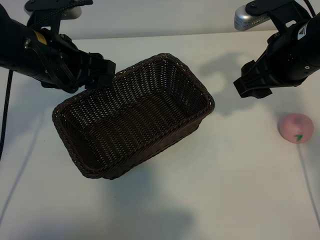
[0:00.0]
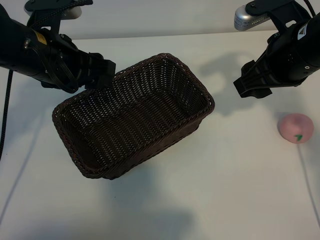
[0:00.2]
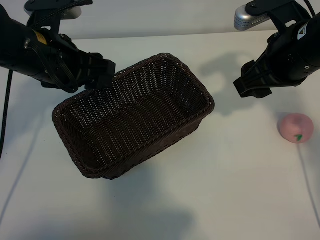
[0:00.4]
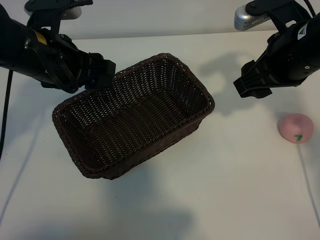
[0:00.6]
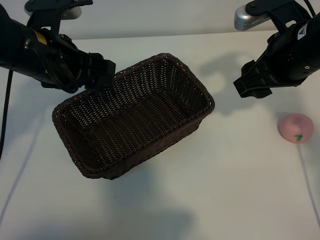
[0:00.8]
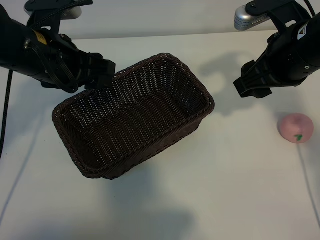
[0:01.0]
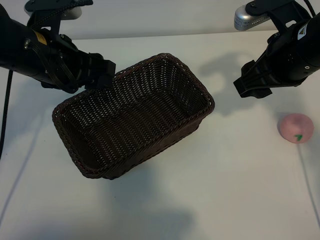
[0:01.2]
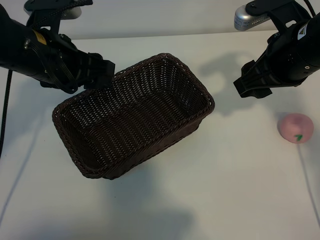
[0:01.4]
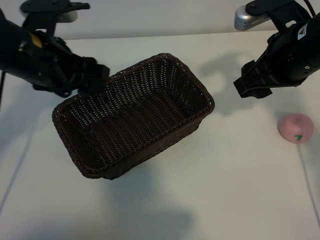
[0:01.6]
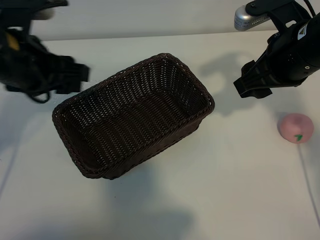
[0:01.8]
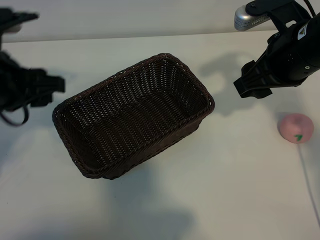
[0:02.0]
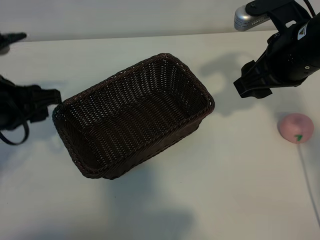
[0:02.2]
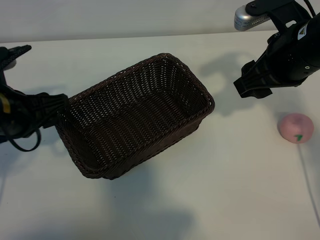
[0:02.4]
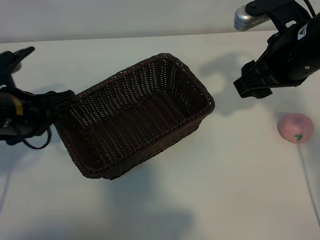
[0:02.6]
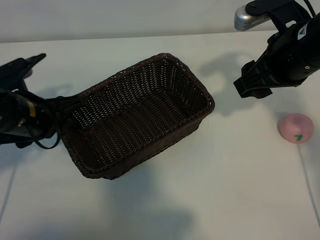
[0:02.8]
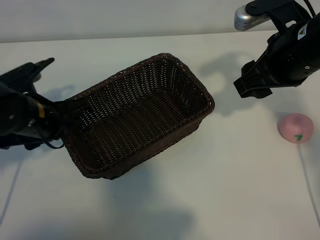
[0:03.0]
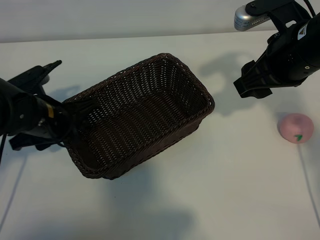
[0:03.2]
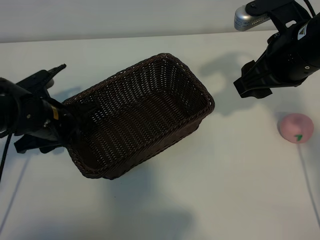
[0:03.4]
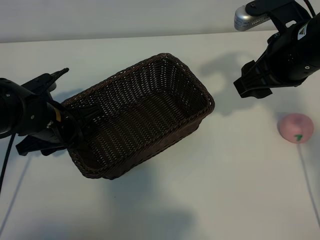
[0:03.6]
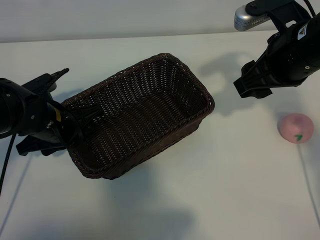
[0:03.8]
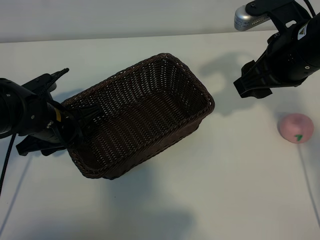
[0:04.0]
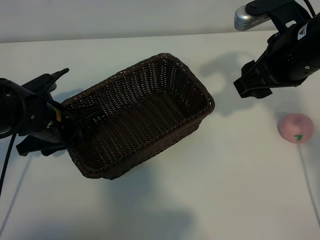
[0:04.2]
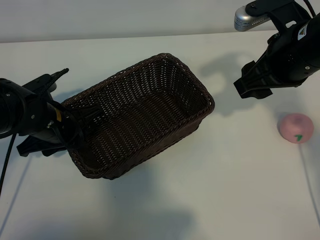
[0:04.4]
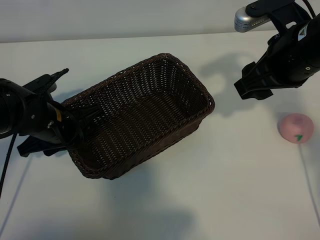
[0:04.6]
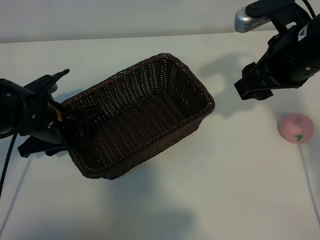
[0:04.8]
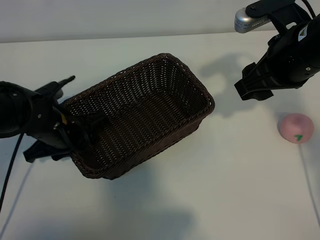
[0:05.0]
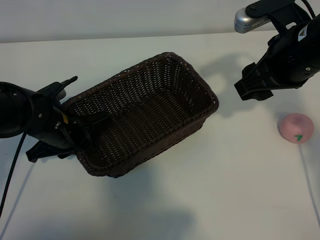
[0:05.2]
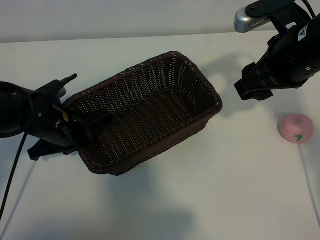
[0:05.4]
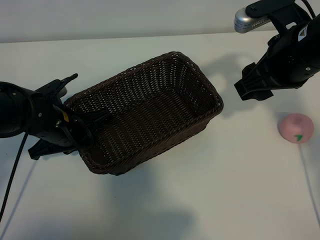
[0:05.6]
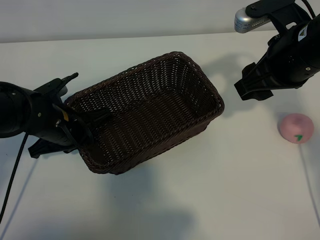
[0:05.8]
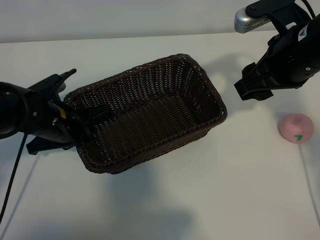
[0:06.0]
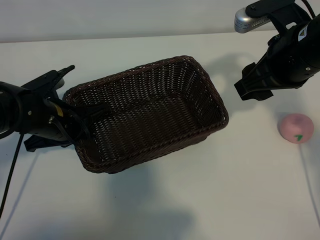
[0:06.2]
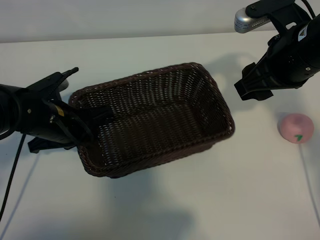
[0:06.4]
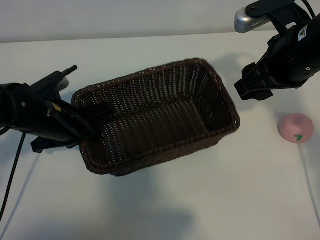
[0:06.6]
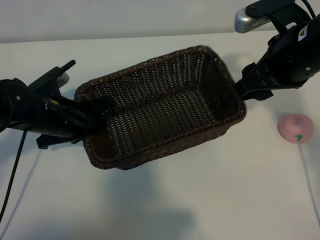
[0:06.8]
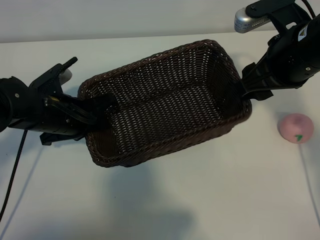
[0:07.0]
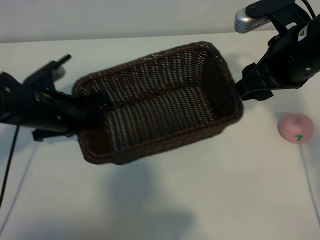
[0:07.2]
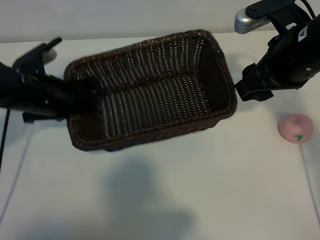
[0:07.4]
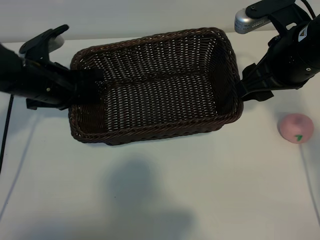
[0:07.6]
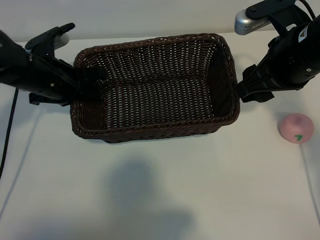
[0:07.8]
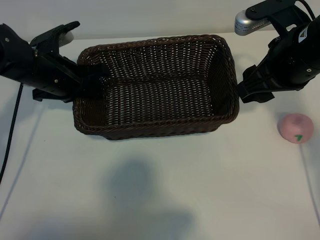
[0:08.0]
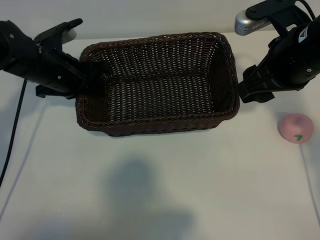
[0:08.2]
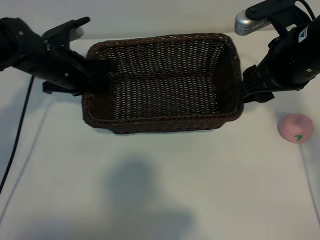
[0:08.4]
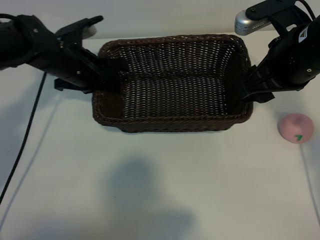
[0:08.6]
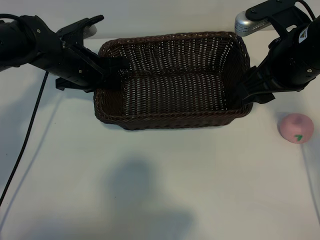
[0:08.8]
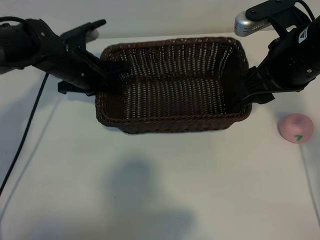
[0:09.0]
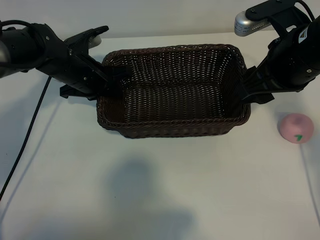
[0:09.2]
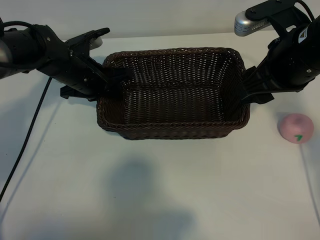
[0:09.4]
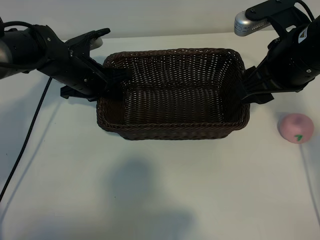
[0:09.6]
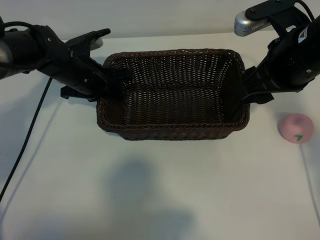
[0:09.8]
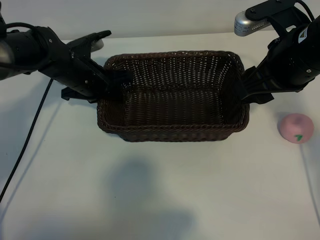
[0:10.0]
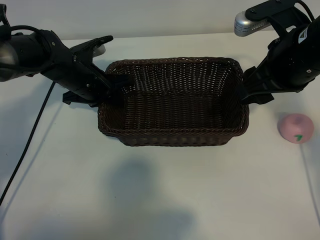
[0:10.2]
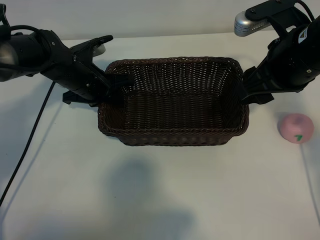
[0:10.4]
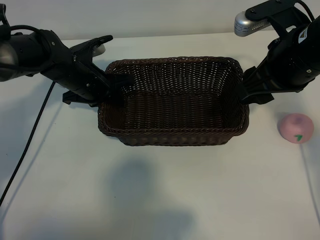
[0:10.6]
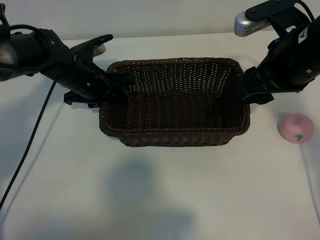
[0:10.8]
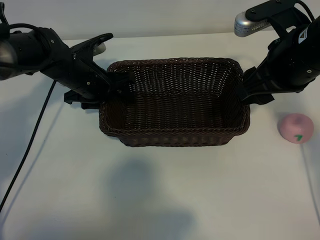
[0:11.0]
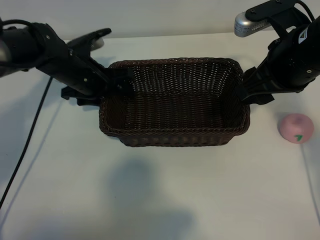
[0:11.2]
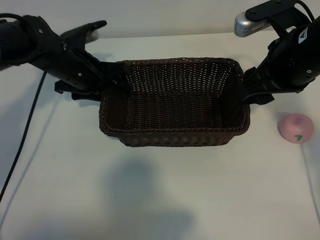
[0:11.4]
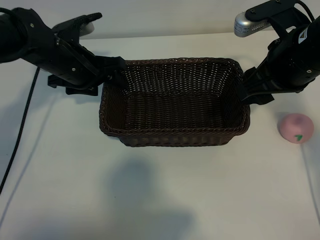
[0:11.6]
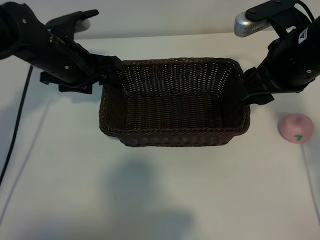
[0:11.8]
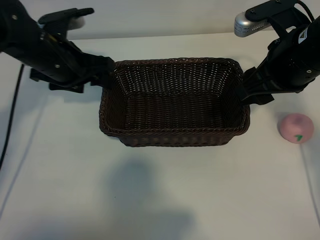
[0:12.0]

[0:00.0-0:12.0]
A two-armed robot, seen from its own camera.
Task of the whole recording: pick up the peach and put it into the basket.
Step, 0:01.6 to 0:05.4: Grasp the basket with left gripper.
Step, 0:05.6 to 0:11.6: Place the basket in the center of view with left gripper.

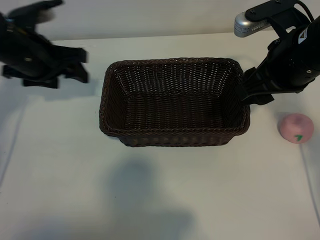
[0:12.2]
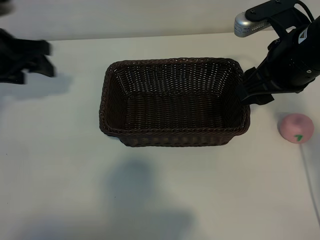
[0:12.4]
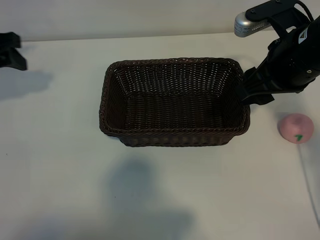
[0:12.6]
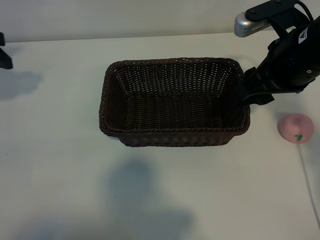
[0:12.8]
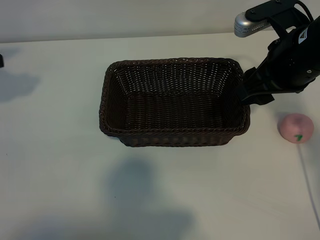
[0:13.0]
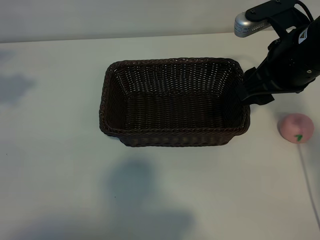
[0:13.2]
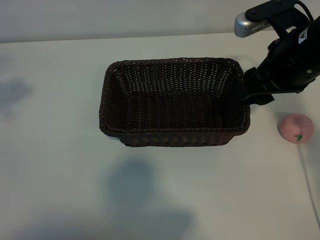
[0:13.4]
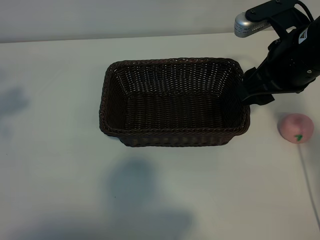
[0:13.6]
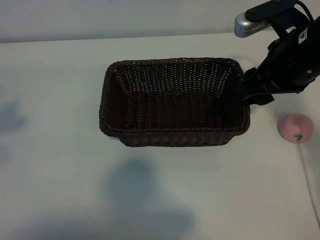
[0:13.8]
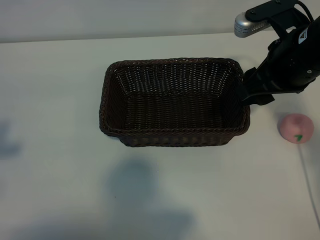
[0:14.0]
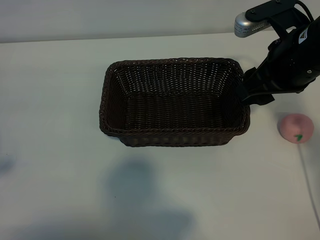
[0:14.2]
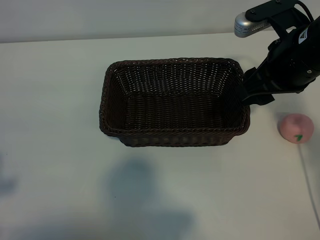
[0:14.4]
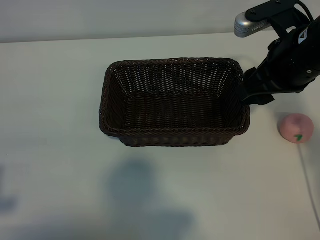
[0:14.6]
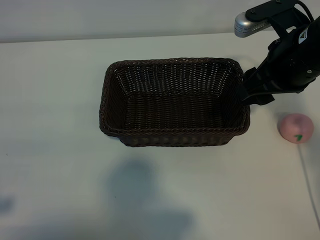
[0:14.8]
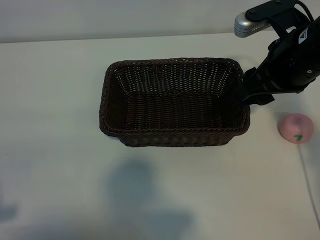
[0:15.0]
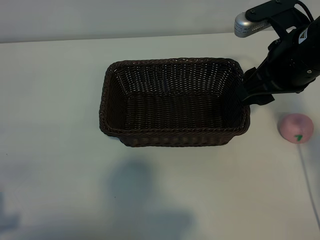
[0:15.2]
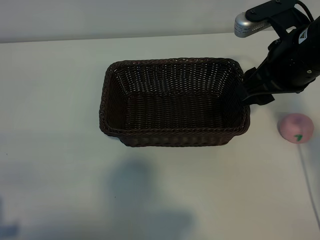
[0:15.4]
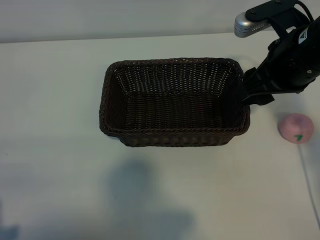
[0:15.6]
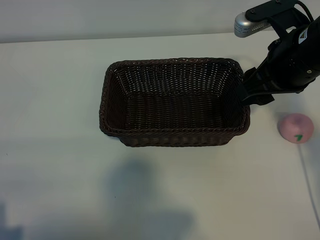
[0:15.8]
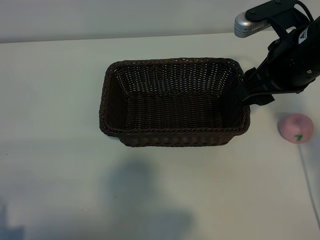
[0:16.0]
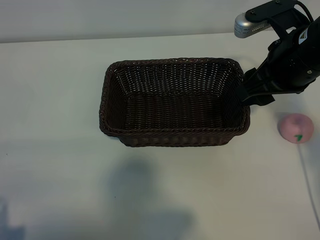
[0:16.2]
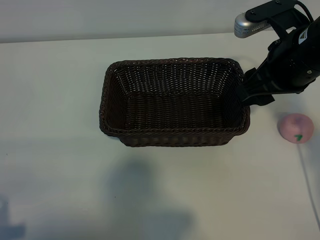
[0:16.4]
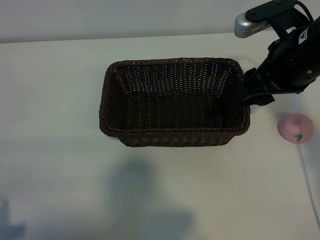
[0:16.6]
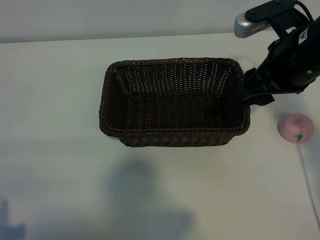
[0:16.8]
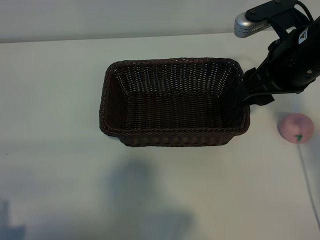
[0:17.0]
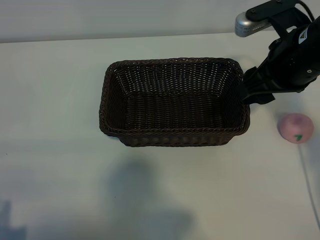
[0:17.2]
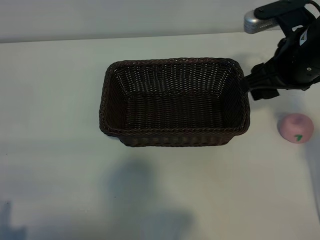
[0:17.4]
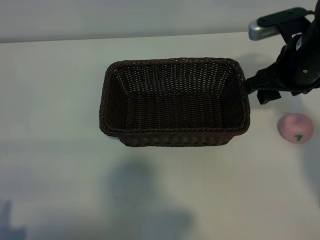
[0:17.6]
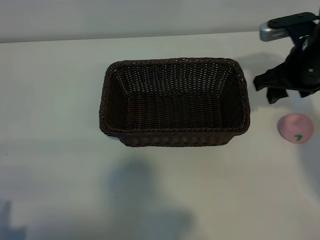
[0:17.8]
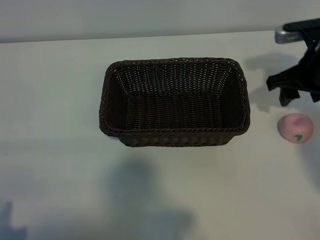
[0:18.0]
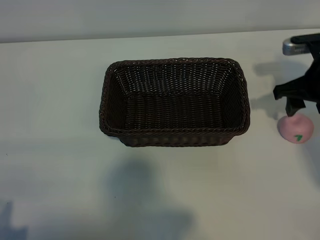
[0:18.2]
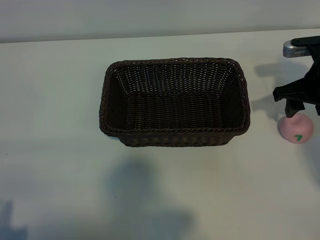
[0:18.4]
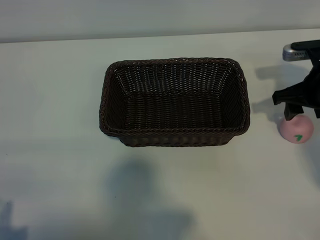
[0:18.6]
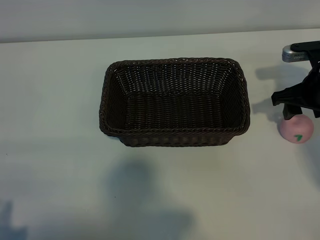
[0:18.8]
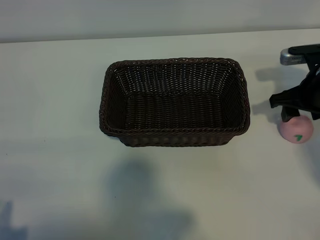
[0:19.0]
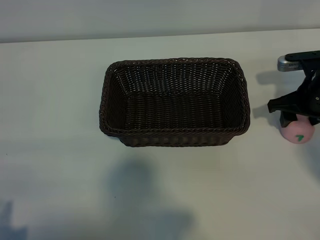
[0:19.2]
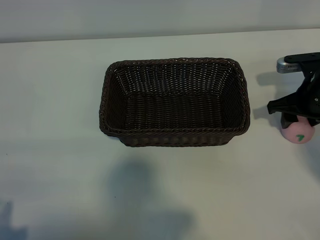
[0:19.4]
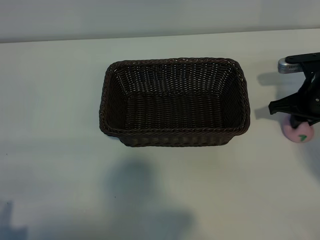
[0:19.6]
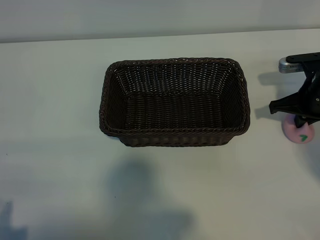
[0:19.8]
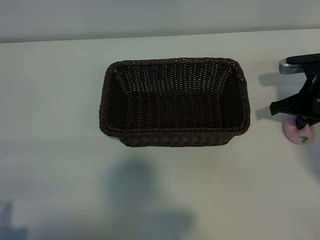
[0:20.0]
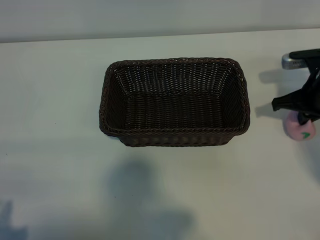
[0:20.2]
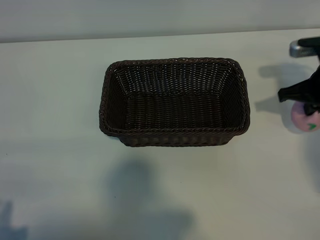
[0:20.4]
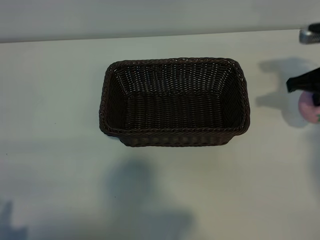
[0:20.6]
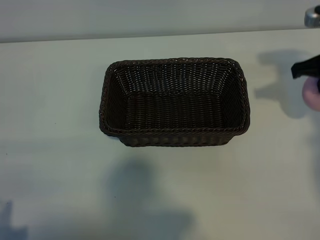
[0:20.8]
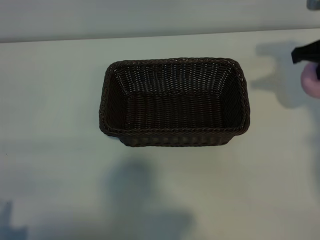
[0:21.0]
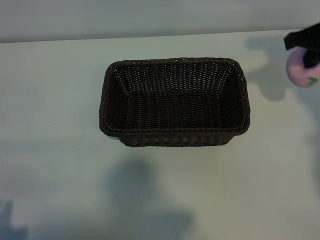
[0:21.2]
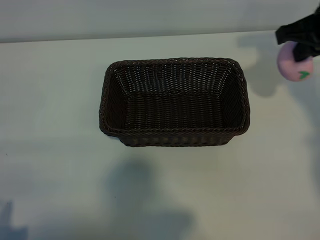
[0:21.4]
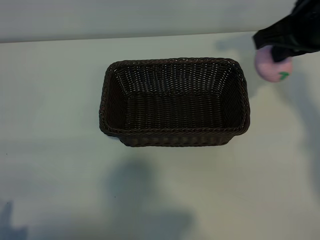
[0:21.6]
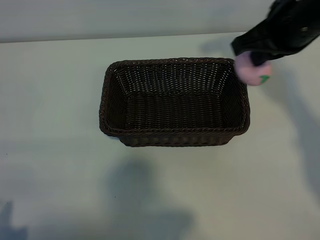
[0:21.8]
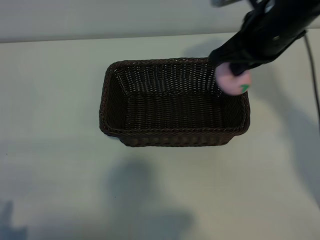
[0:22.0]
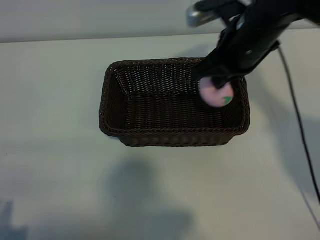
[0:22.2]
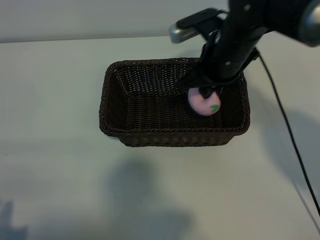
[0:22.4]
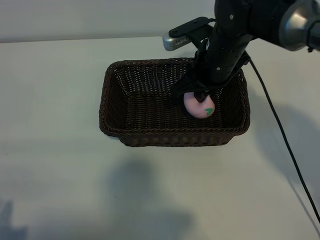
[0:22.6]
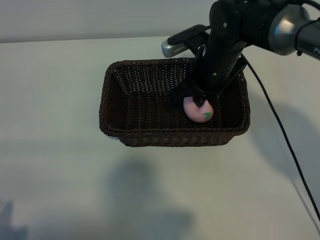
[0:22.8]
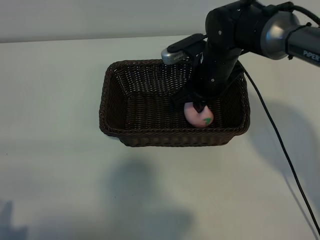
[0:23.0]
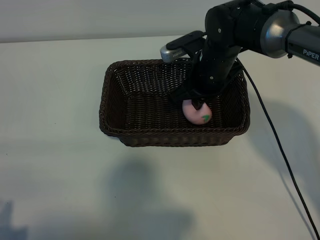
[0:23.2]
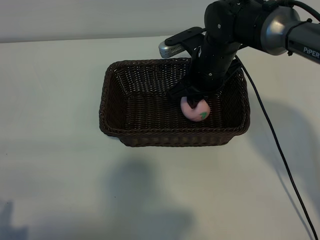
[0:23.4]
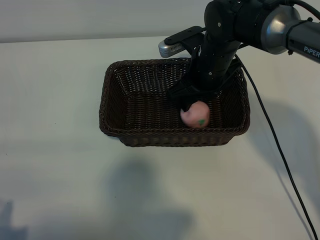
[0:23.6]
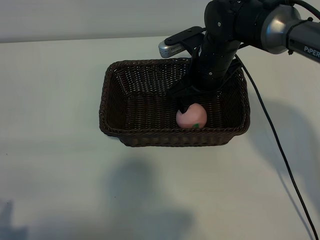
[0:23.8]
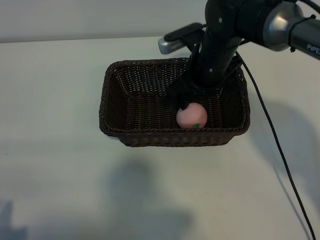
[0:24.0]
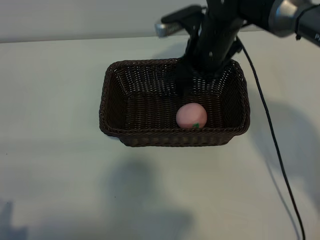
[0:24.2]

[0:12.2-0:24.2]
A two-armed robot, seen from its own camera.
Task of the whole recording: pick up the peach and put it into the basket.
Step, 0:12.2 to 0:19.8: Grasp the peach with right gripper.
Step, 0:20.0 to 0:23.6: Place the peach in the basket with right gripper.
